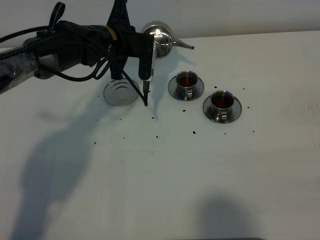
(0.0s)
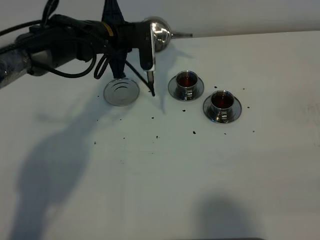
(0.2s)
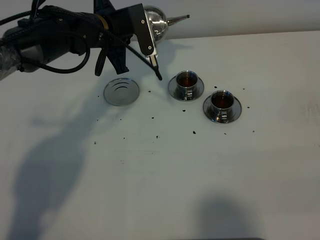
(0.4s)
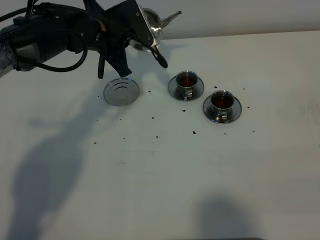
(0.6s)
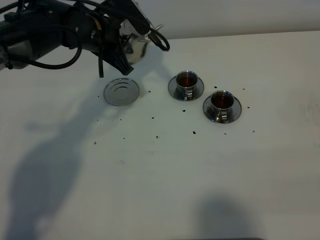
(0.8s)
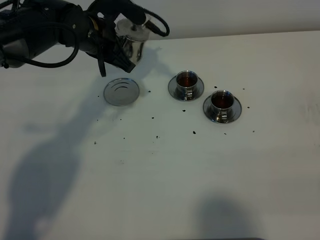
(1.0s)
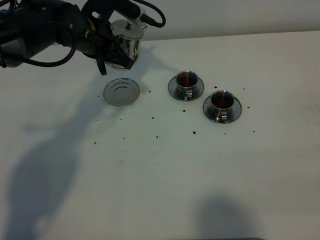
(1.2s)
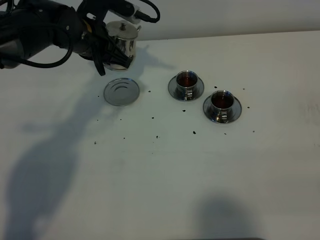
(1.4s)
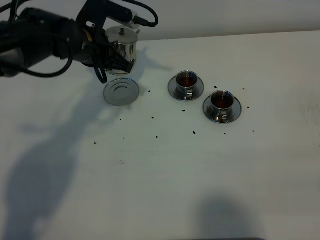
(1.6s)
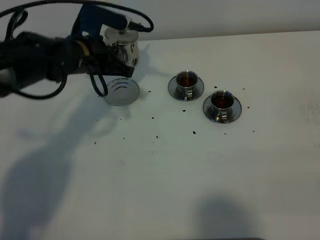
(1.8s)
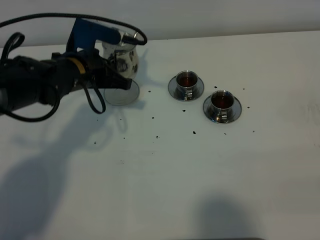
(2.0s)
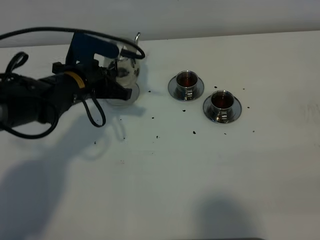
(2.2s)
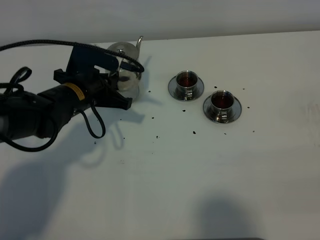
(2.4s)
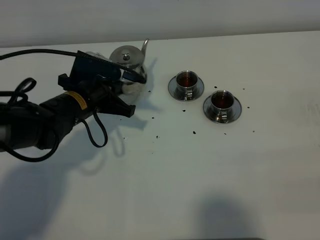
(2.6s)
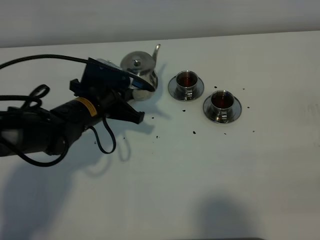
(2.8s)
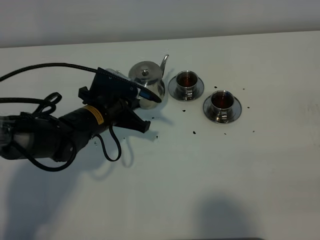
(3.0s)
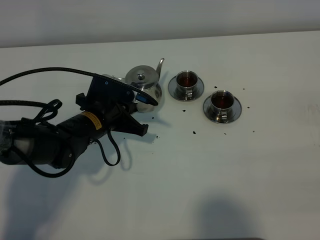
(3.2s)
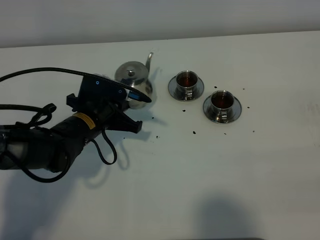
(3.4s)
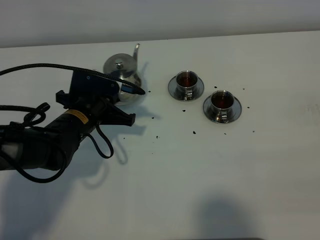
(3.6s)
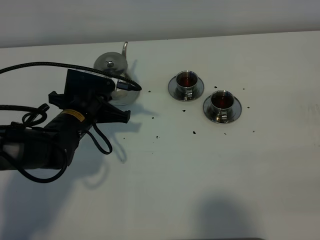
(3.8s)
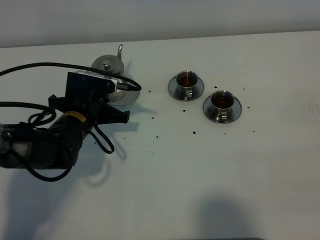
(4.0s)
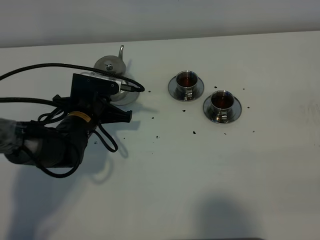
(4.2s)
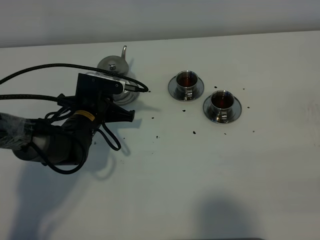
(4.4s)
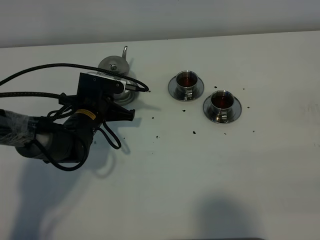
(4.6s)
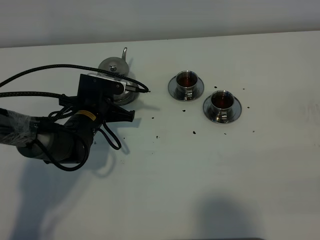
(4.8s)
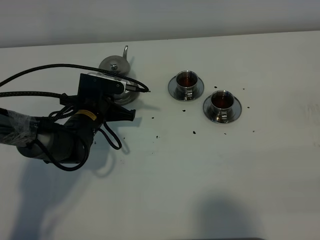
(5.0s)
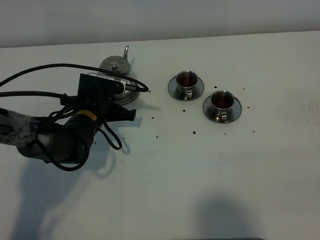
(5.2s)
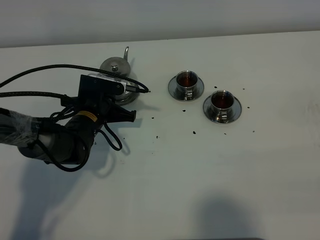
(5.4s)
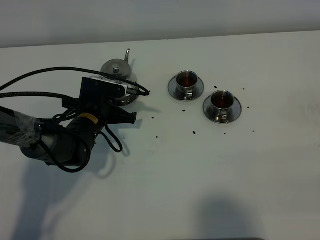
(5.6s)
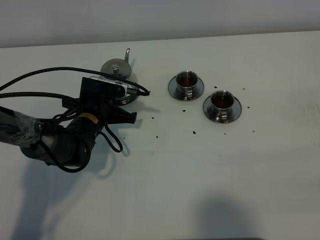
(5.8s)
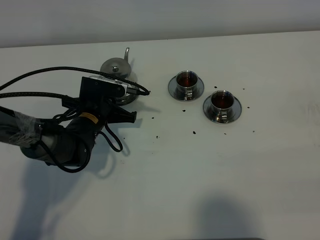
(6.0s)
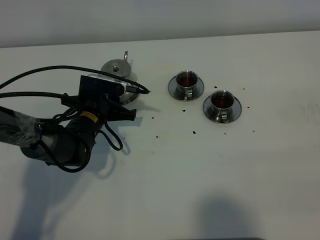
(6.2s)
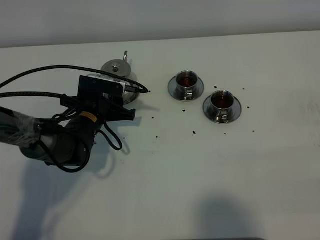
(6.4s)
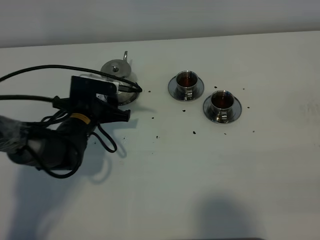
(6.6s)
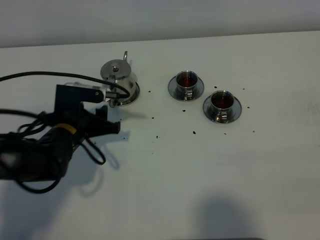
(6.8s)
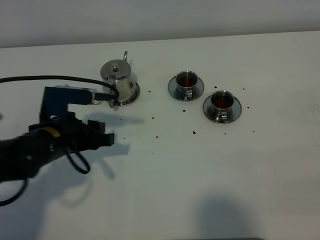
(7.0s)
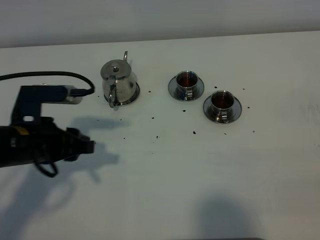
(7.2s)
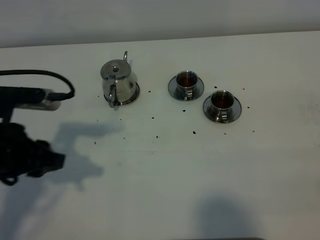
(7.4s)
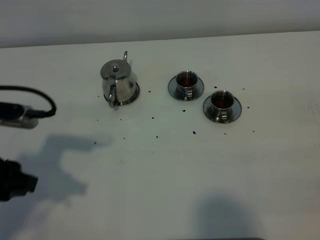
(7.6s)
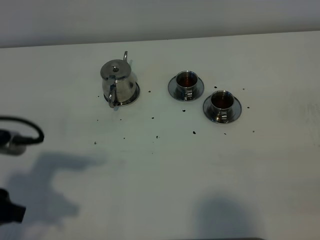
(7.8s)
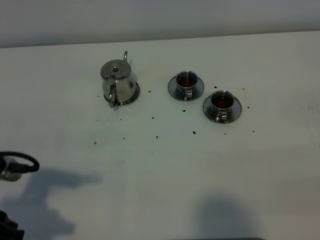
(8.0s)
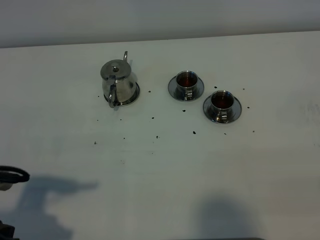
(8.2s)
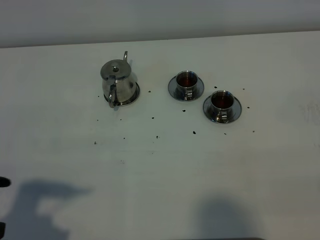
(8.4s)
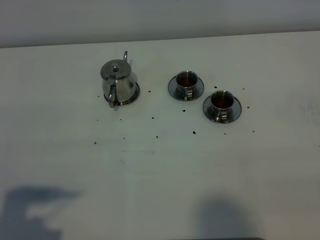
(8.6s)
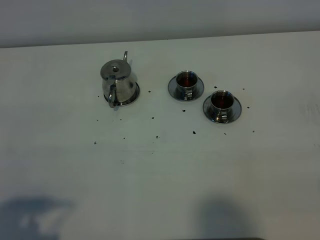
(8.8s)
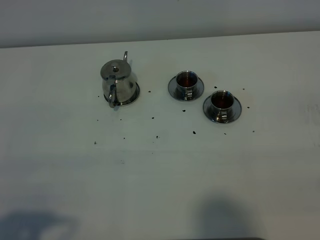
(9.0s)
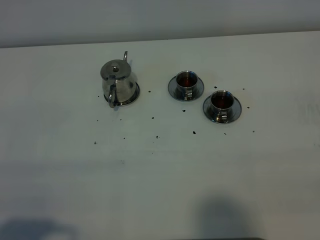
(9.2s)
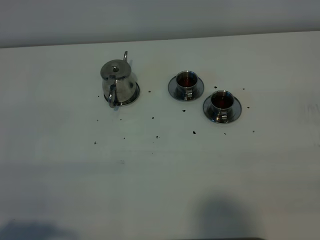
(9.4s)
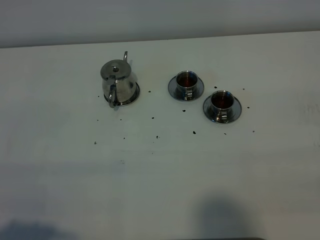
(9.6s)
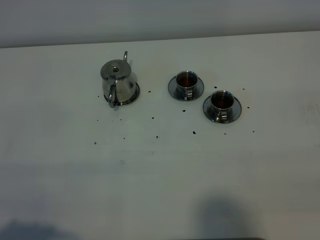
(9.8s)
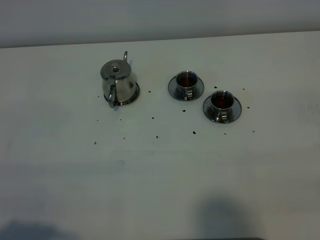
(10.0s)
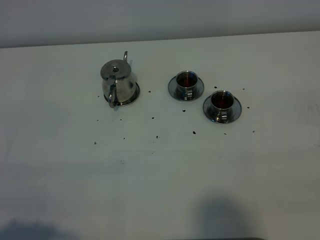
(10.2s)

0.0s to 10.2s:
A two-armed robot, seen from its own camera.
Task of the whole recording: grasp the stainless steel teapot and pour the tea into the two stainless steel teacups one by one, put the stainless steel teapot back in its original place.
0.0s to 1.4s: The left gripper changes place by approximately 5 cm.
1.4s to 3.0s: The left gripper shifts approximately 15 cm downward and backward.
4.4s to 5.8s: The grippers move only a little.
5.8s to 7.2s: The left gripper travels upward, backward and to the left by about 20 cm, and opens its fingers.
7.2s to 8.8s: The left gripper heads backward, covering approximately 20 cm.
8.8s to 10.2s: The grippers make only small movements.

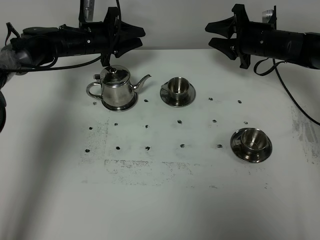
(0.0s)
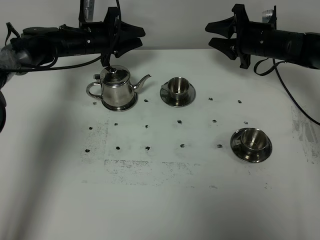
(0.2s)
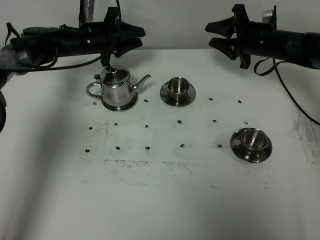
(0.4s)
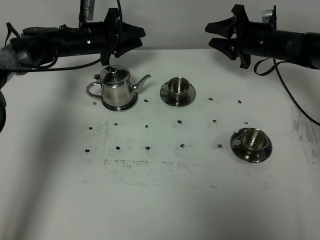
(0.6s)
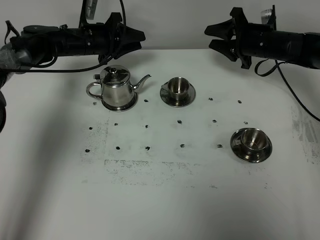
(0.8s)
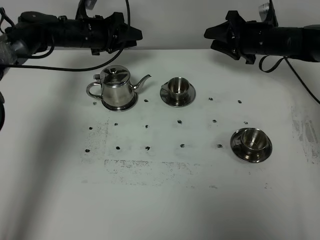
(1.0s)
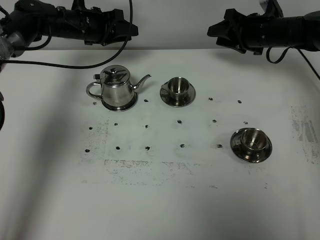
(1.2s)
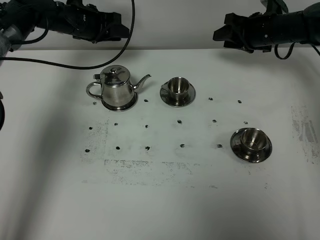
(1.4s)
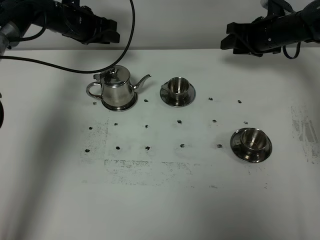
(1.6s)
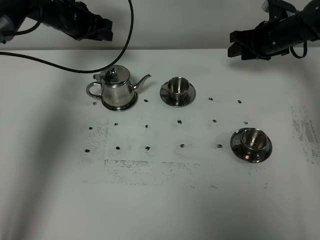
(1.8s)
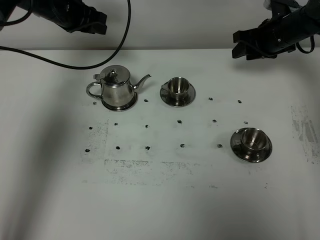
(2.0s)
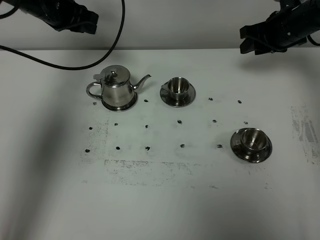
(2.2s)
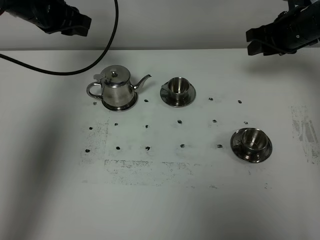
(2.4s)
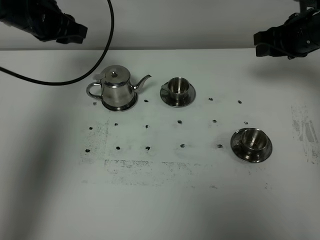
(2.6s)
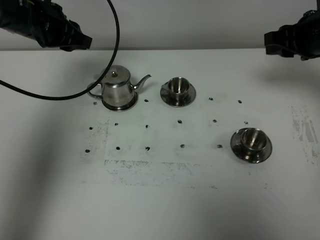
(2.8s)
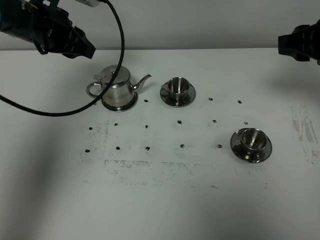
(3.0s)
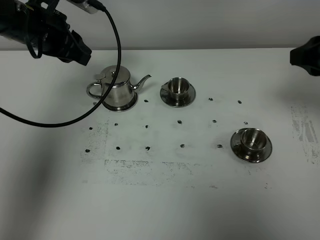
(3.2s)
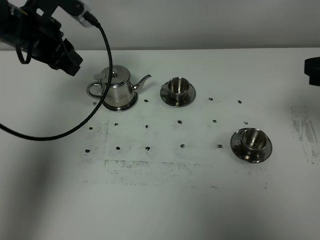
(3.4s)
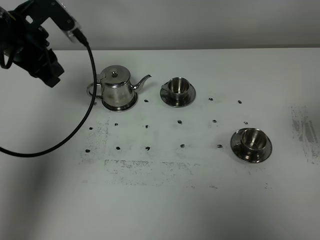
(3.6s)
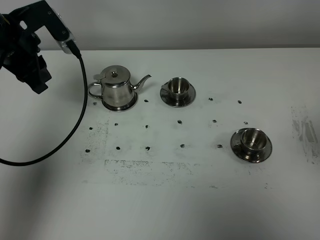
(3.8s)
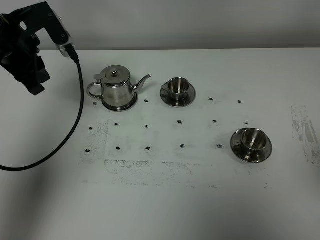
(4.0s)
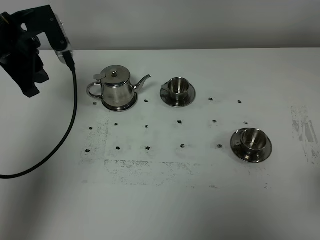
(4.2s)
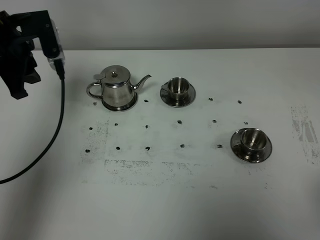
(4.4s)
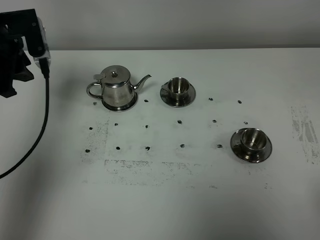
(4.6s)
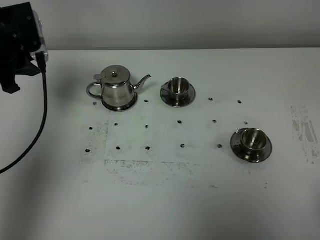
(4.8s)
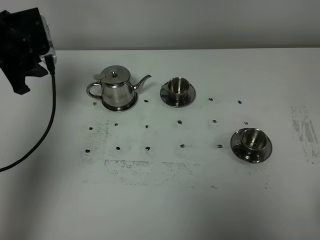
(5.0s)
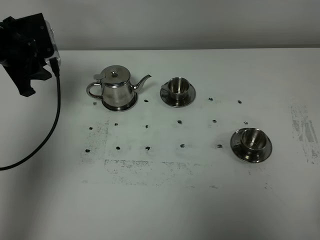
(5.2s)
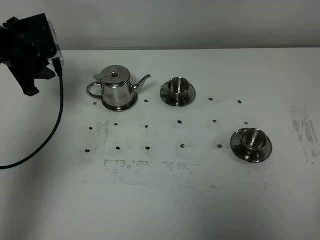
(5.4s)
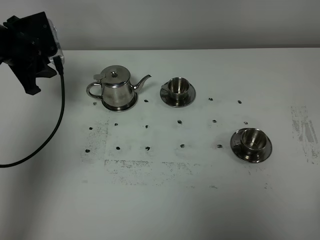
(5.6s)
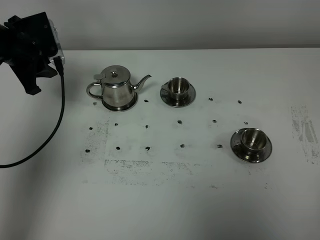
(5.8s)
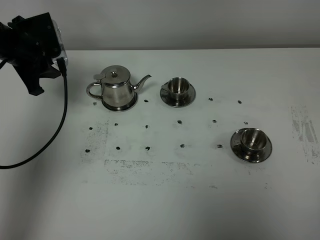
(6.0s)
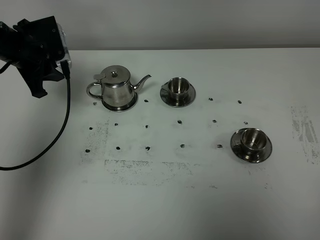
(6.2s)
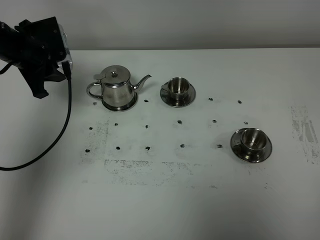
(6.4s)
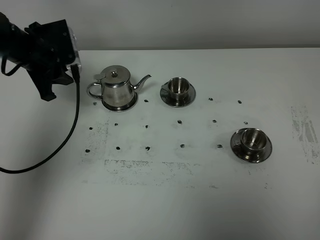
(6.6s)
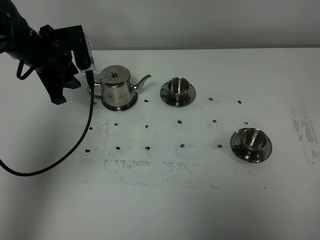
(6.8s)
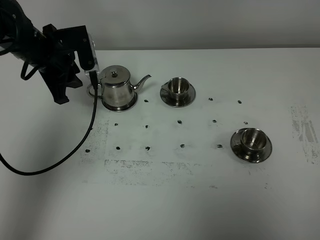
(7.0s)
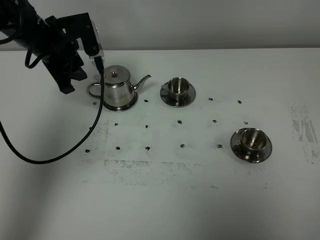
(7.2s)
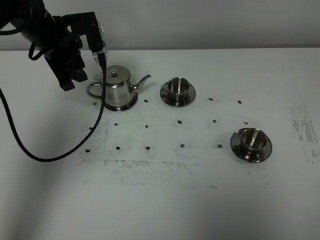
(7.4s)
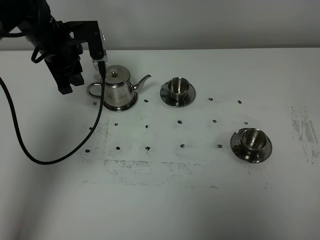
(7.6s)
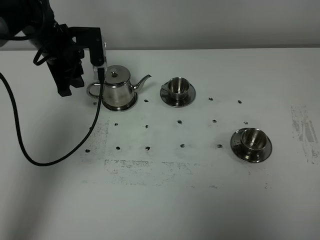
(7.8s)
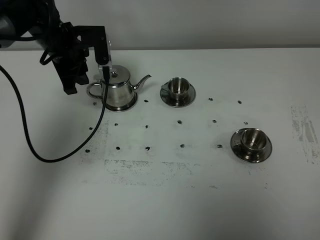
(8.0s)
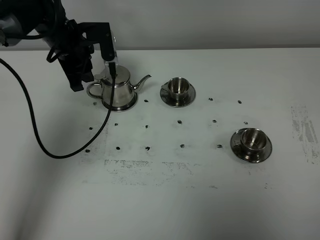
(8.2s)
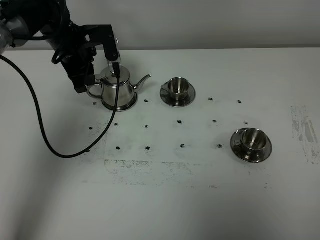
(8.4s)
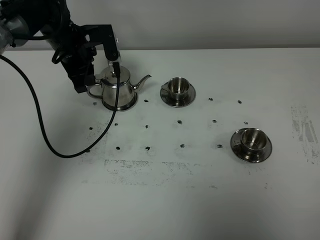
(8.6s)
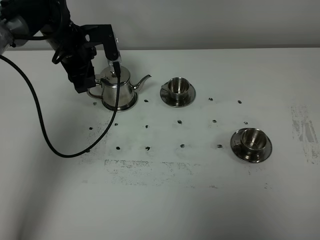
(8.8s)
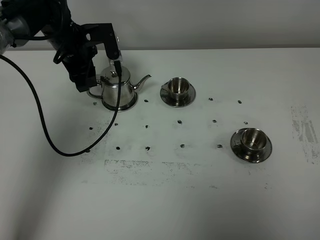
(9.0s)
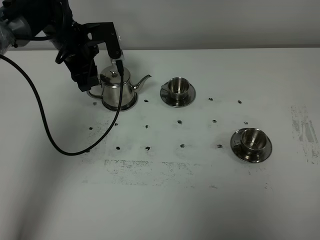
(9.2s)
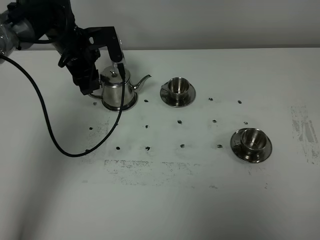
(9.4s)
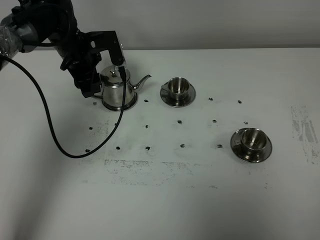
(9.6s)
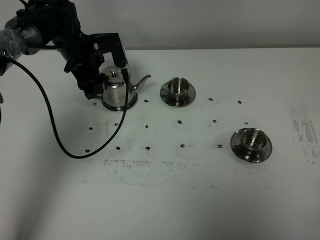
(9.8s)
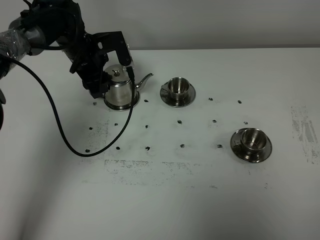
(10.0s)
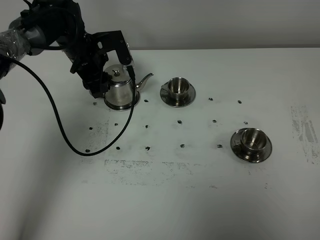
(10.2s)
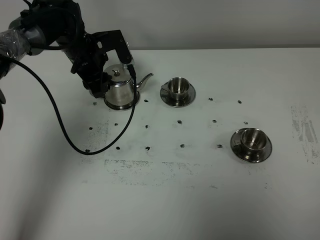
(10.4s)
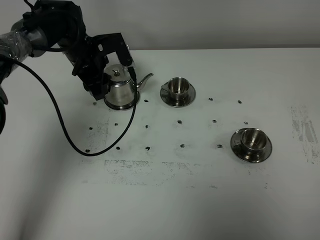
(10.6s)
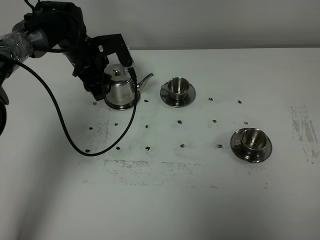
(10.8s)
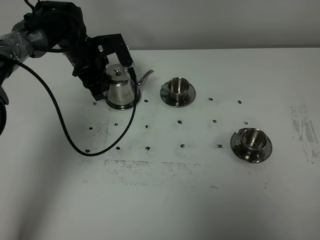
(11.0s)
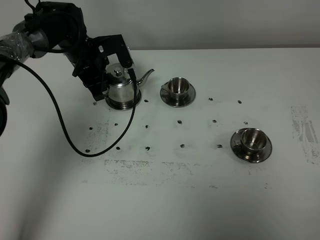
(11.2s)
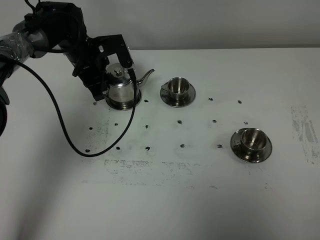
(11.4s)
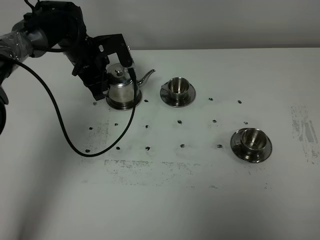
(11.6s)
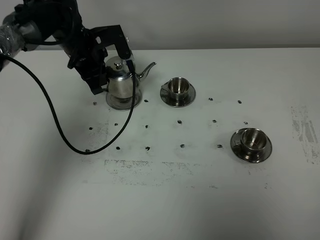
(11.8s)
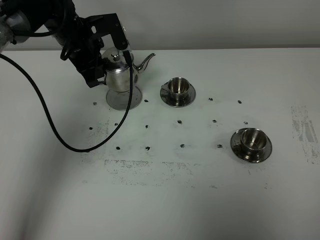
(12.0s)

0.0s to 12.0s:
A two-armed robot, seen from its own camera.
Task of the whole recording: grasp the stainless steel teapot and pour the tea into the two stainless steel teacups one by one, put the stainless steel teapot back in its original place.
Step, 0.0s to 11.8s: Pick up the teapot with the left gripper.
0.0s to 1.6s: The left gripper moves upward, approximately 5 cm.
1.6s to 3.0s: Both grippers move backward and upward, approximately 20 cm.
3.0s to 4.4s: The left gripper is displaced to the left by roughly 5 cm; the right gripper is displaced backward by approximately 30 cm.
4.4s to 6.0s: The left gripper shifts by some 5 cm.
6.0s to 7.6s: The left gripper shifts roughly 5 cm to the right.
7.6s to 9.0s: The left gripper opens.
9.0s to 10.4s: The grippers stay close to where they were, moving slightly.
10.4s to 12.0s: The left gripper shifts by about 5 cm, and closes up.
